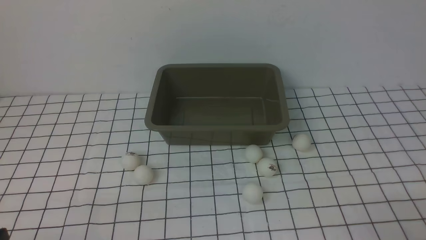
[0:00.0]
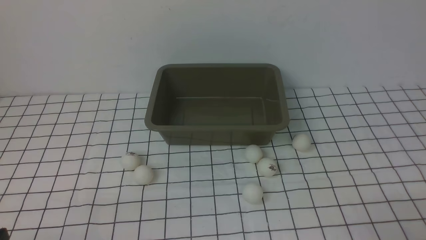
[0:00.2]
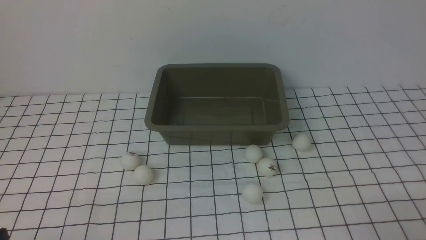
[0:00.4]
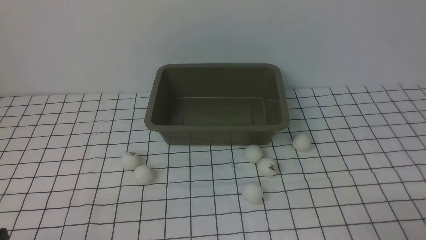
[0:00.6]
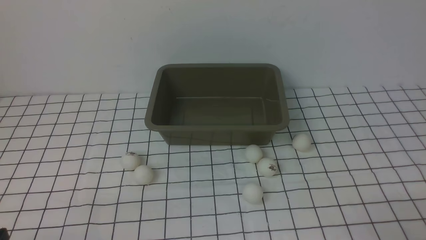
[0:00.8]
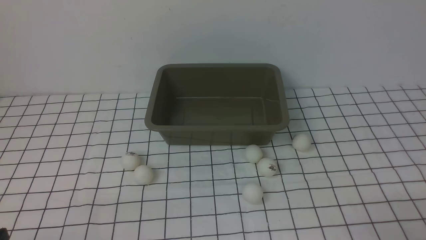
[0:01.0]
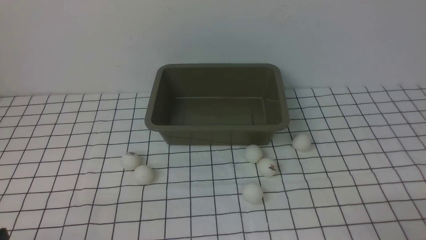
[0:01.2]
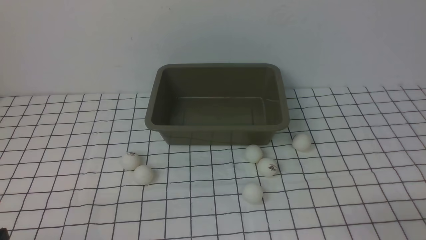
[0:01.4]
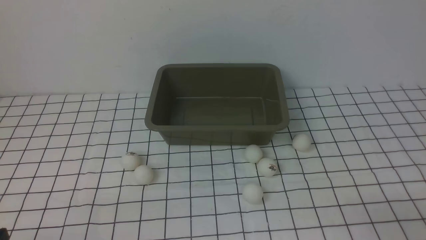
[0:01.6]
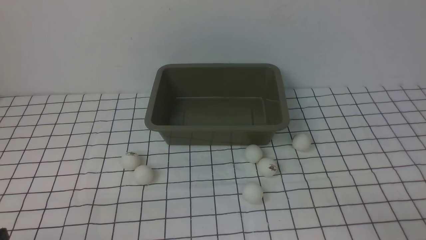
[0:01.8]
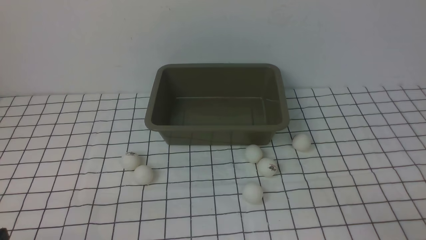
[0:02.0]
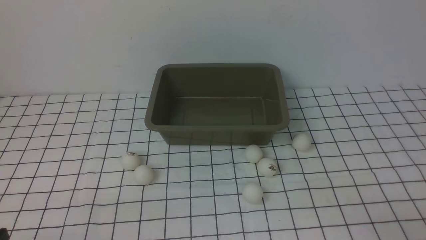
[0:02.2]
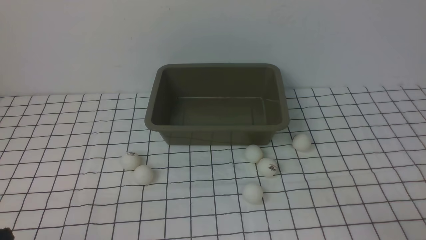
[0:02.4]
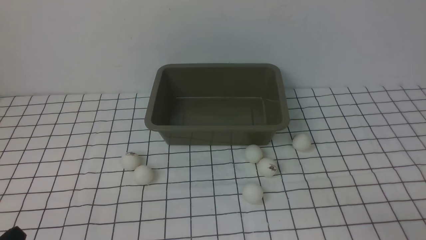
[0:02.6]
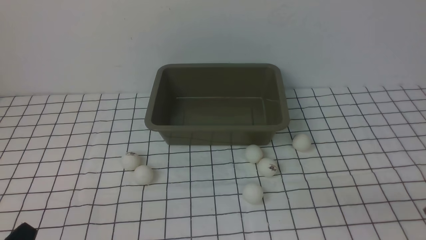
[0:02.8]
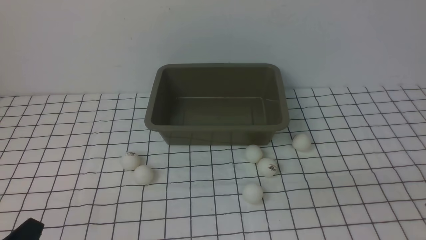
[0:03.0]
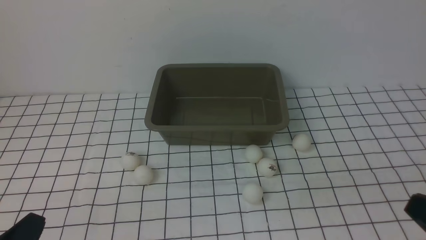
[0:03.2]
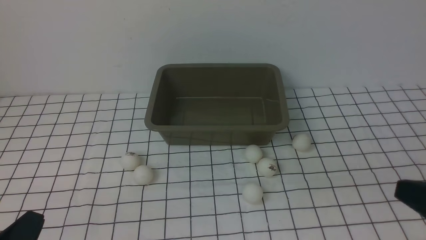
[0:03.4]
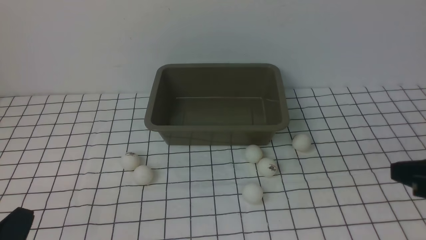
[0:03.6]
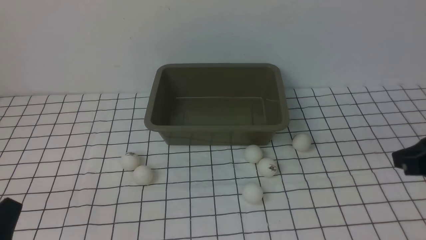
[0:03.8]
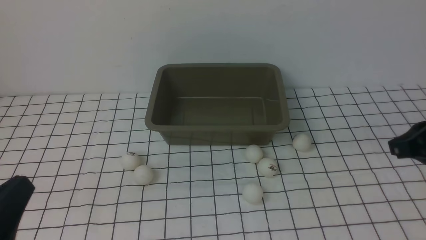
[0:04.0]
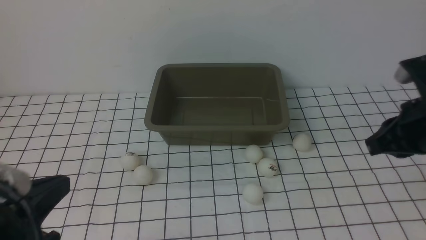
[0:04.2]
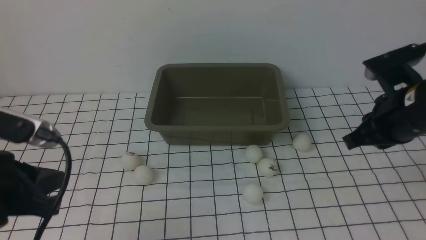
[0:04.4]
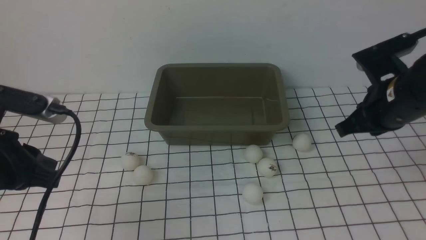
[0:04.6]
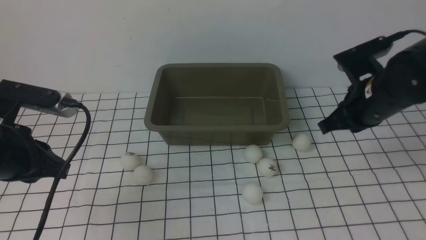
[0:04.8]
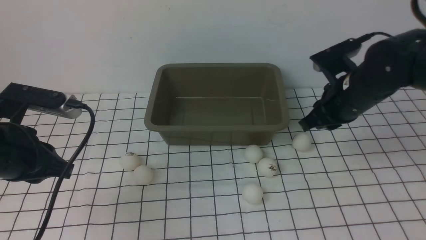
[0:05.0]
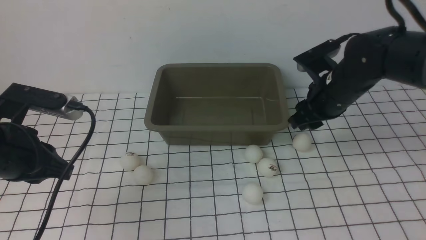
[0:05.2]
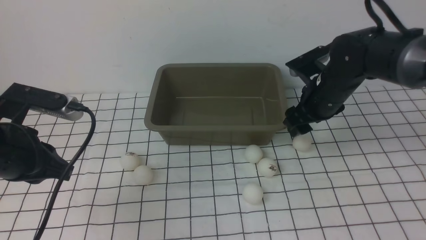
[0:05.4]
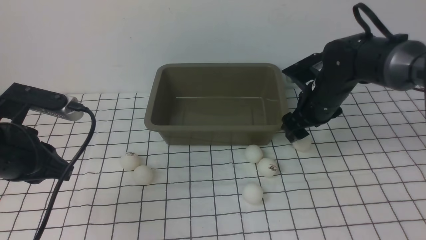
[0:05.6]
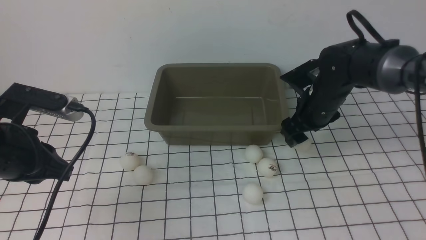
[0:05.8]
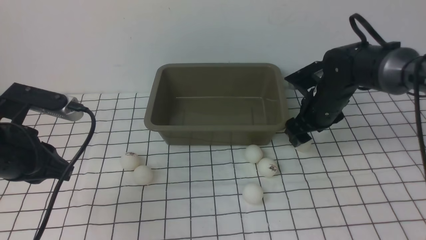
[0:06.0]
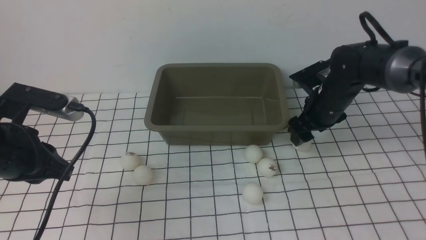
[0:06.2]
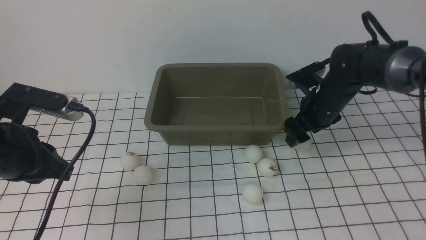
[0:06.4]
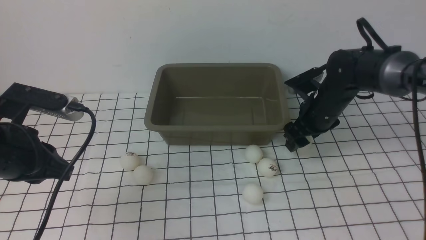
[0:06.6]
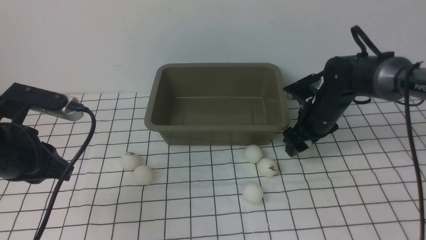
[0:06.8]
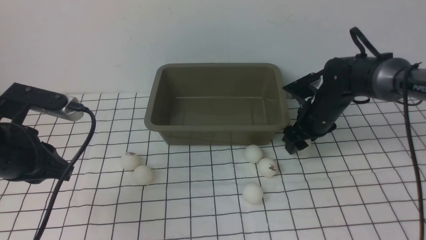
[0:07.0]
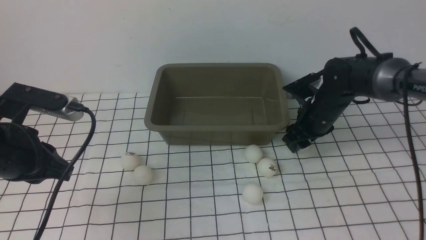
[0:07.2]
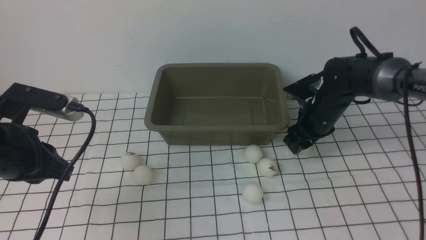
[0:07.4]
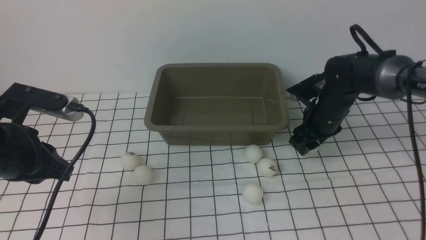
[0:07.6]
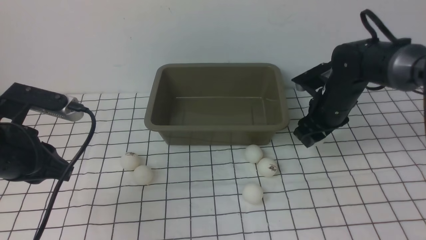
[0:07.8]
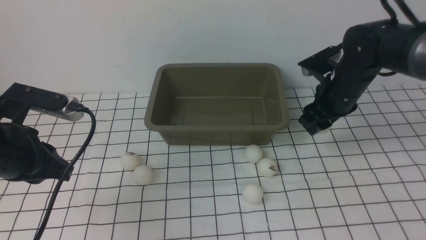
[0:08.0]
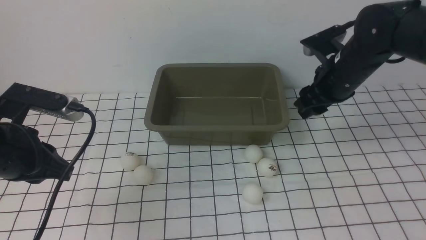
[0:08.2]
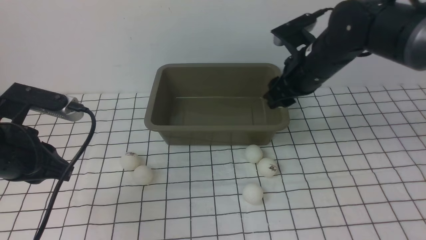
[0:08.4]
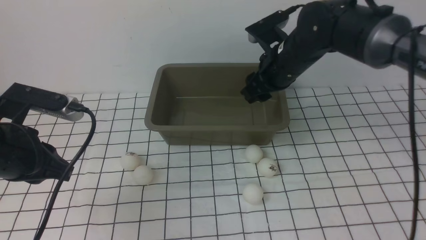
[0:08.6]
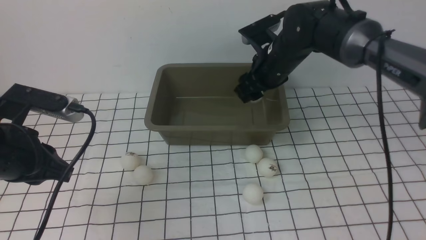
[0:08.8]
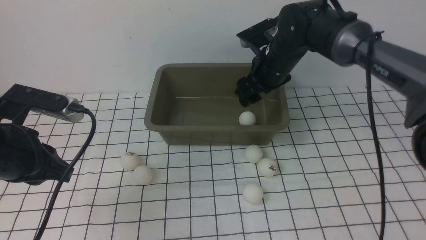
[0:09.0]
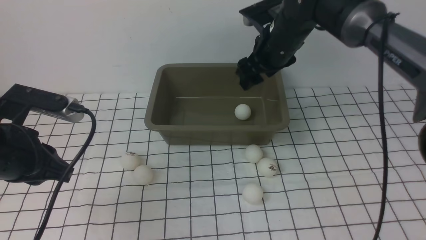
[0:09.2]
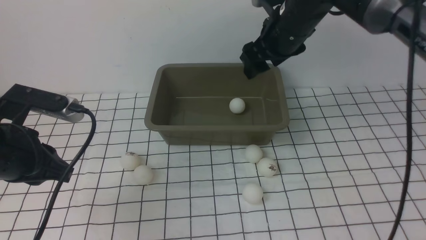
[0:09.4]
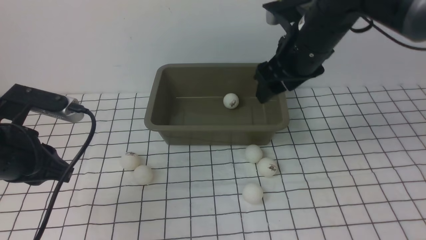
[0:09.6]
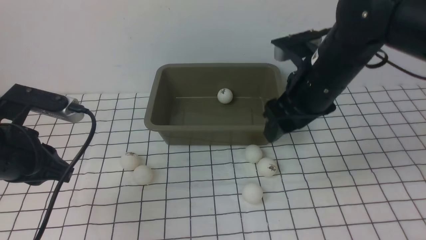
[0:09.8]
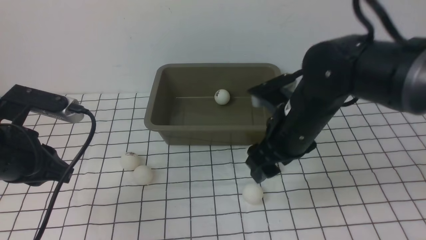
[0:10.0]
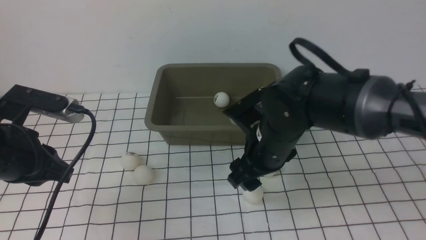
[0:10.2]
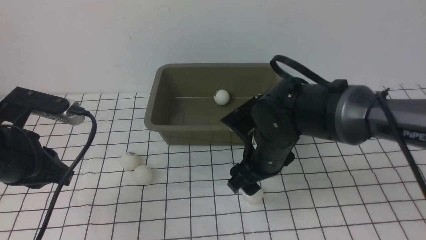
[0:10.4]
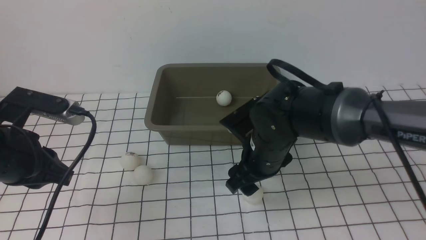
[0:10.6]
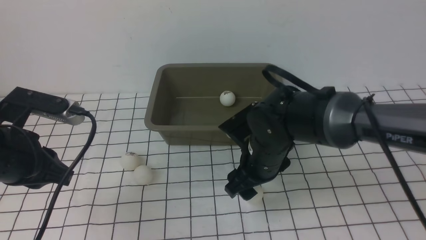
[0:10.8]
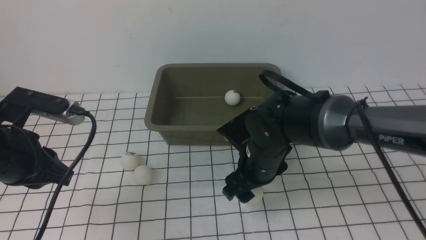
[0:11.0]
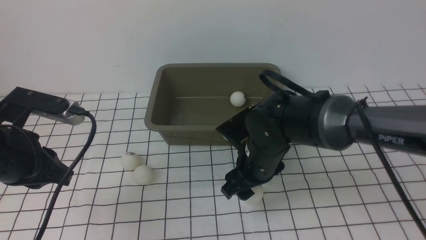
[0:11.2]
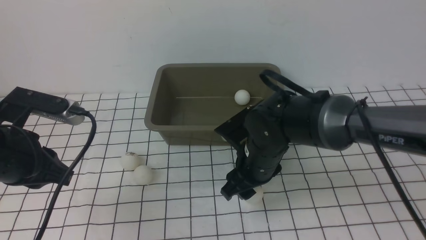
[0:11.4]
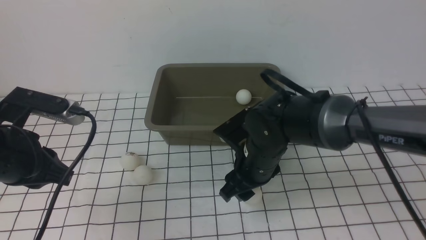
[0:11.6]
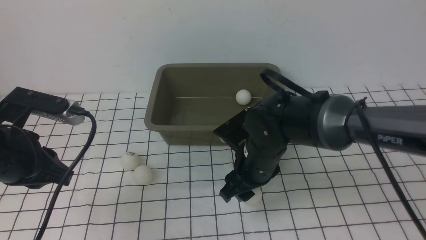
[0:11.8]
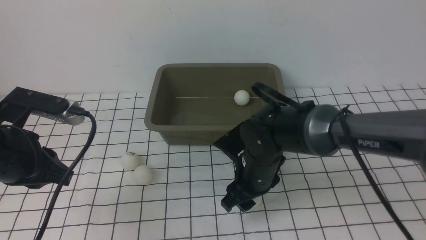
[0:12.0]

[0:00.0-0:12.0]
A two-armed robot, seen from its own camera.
Step, 0:00.0 to 0:07.8: use the right arm to clamp the table tennis ball closest to it.
Step, 0:08.0 to 0:09.0: use the right arm to put the table tennis ball into the box.
0:03.0 to 0:04.4: The right gripper heads forward, covering approximately 25 cm. The left gripper is displaced upward and forward by some 15 cm.
0:04.4 to 0:06.0: The left gripper is displaced forward by some 10 cm; the right gripper goes about 20 cm forward and downward, and opens up.
0:06.0 to 0:07.6: The right gripper closes.
0:07.6 to 0:09.0: The right gripper heads to the left and upward, covering roughly 15 cm.
0:09.0 to 0:10.4: The right gripper shifts roughly 15 cm backward and downward.
0:10.4 to 0:12.0: The grippers stay close to where they were, moving slightly.

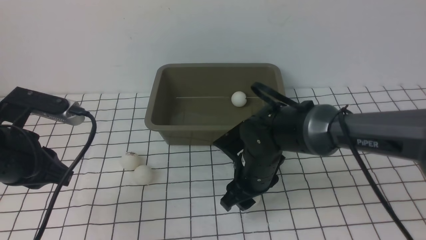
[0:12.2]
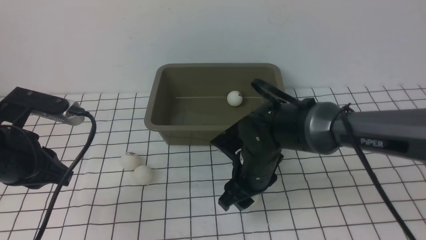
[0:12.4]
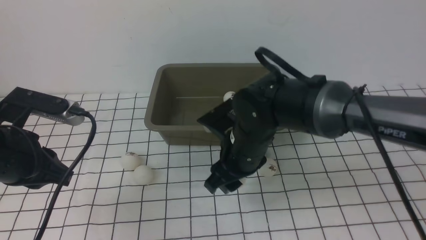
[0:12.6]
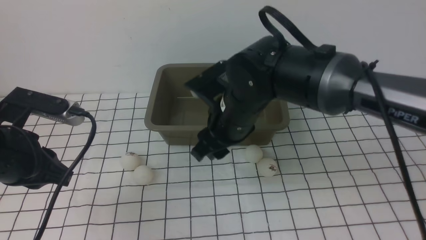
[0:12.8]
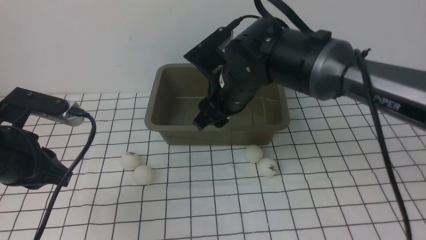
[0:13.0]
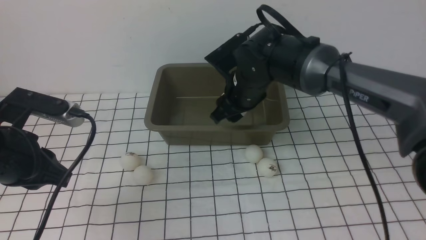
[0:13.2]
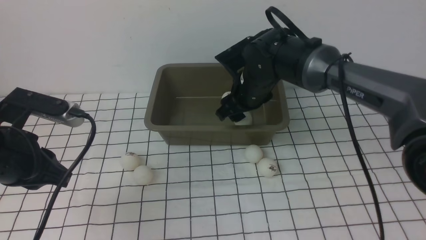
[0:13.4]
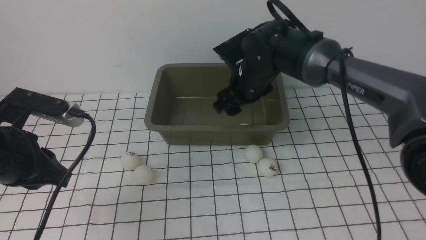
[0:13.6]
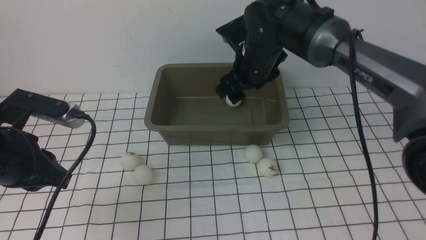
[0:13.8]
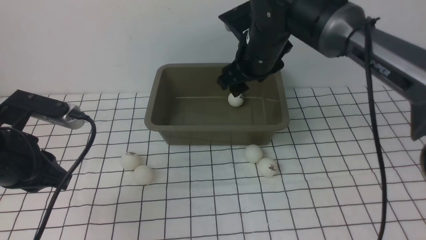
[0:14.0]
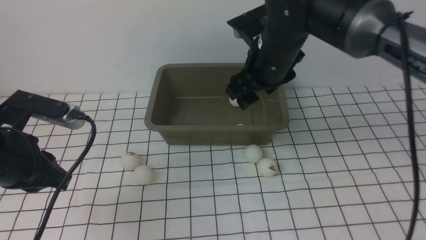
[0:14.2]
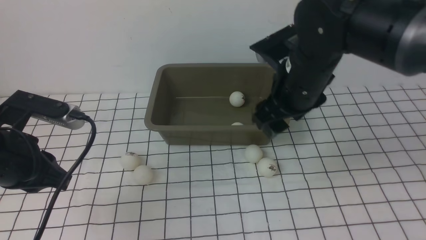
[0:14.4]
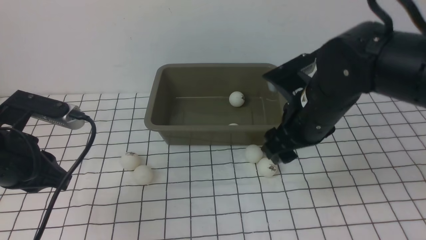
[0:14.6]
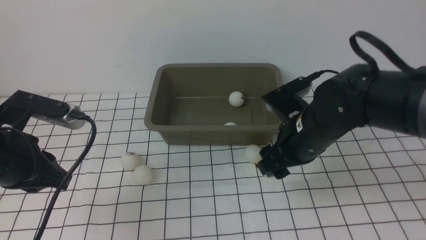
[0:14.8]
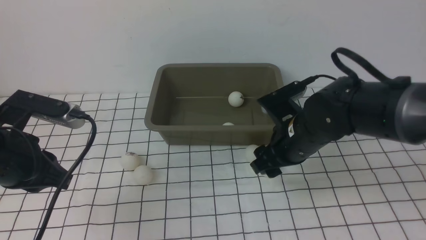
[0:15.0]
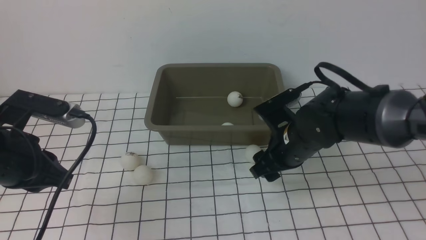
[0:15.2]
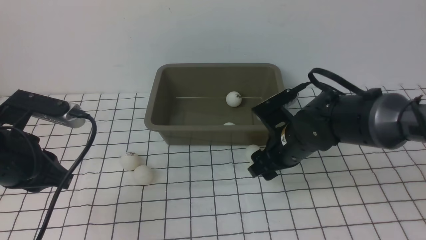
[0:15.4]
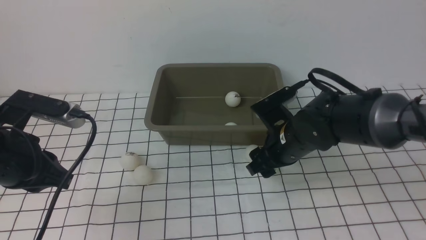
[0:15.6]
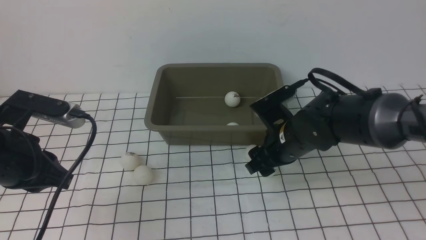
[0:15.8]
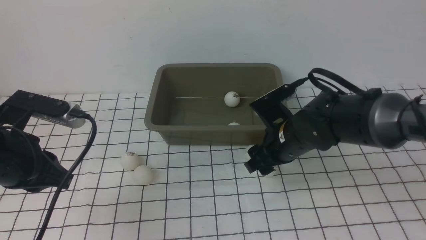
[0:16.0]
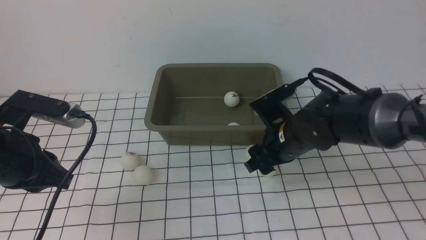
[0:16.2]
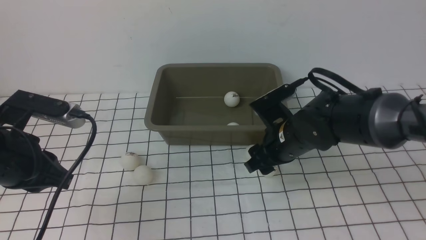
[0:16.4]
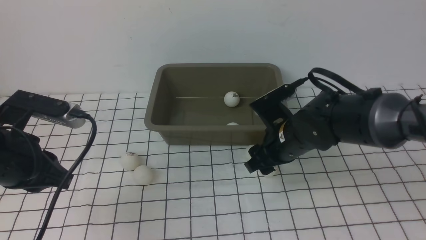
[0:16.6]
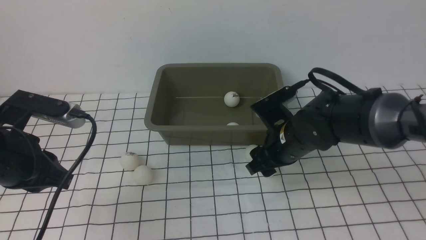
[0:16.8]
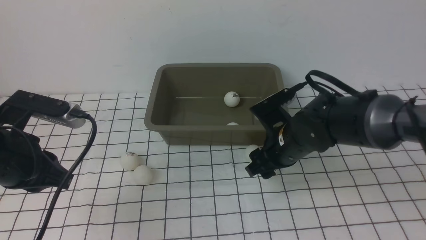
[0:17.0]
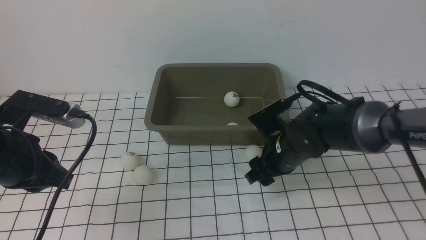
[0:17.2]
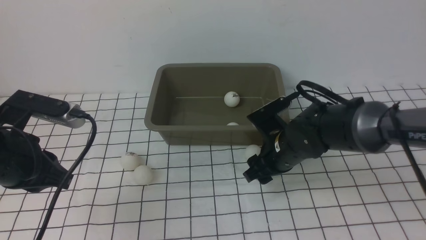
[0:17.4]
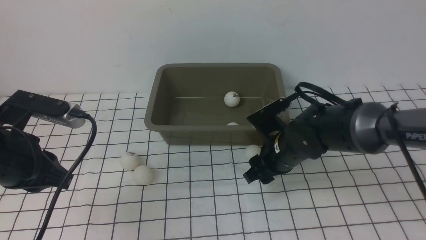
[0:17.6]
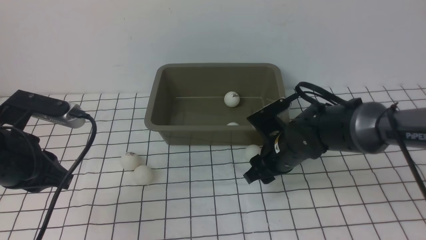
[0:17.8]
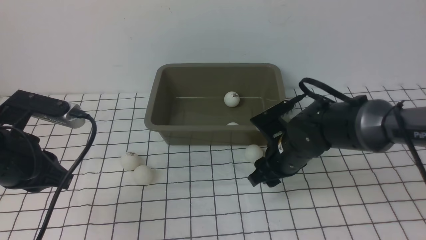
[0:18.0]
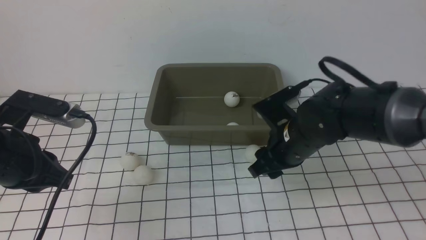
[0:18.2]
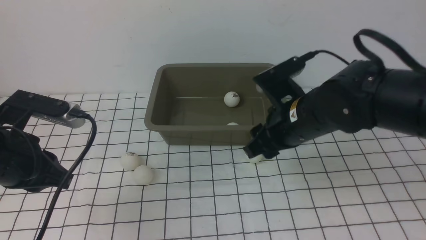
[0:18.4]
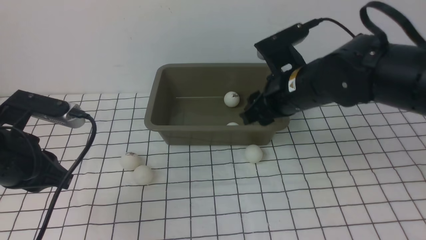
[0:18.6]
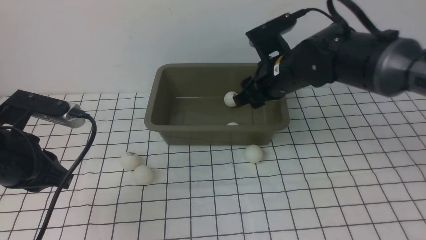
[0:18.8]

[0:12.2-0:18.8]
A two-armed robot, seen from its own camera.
Step, 0:12.8 to 0:13.6: use the right arm to put the table tennis ball into the box.
Step, 0:13.8 to 0:18.2: use the right arm to clamp the table tennis ball closest to it.
0:12.2 to 0:13.8: The right gripper is displaced upward and forward by roughly 15 cm.
0:13.8 to 0:15.4: The right gripper moves downward, backward and to the right, roughly 15 cm.
0:15.4 to 0:17.2: The grippers stay close to where they were, moving slightly.
0:17.2 to 0:18.8: The right gripper heads upward and forward, covering about 10 cm.
